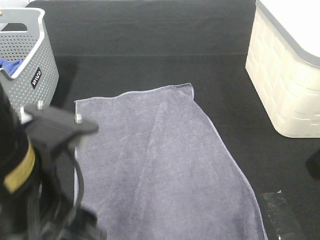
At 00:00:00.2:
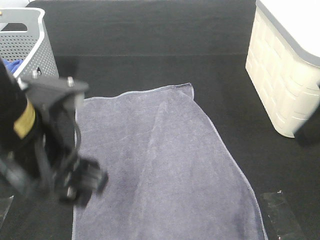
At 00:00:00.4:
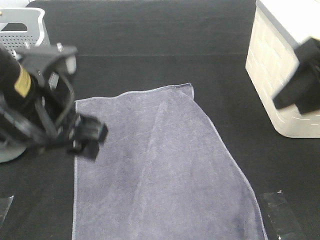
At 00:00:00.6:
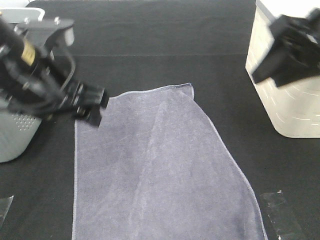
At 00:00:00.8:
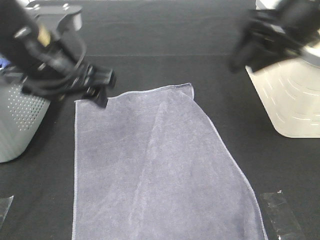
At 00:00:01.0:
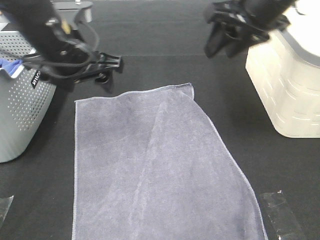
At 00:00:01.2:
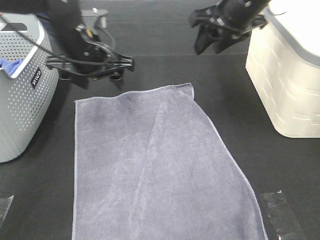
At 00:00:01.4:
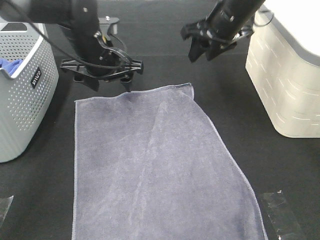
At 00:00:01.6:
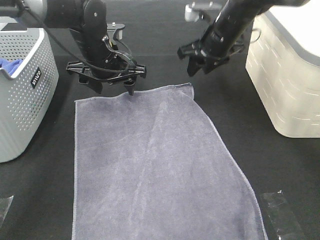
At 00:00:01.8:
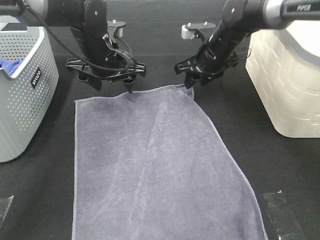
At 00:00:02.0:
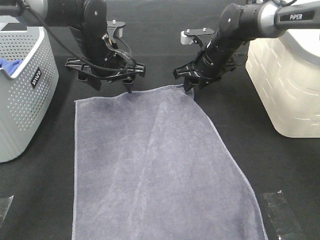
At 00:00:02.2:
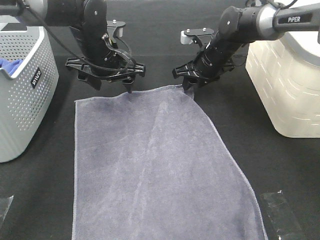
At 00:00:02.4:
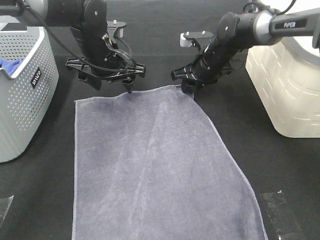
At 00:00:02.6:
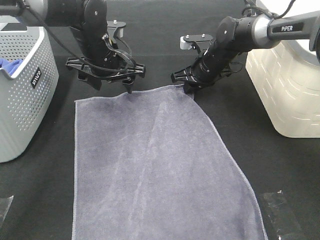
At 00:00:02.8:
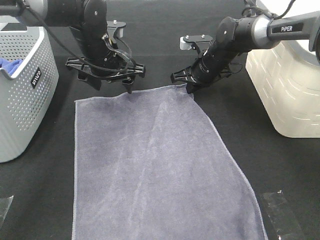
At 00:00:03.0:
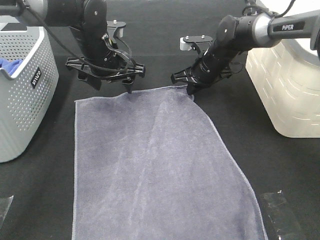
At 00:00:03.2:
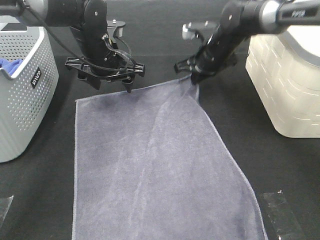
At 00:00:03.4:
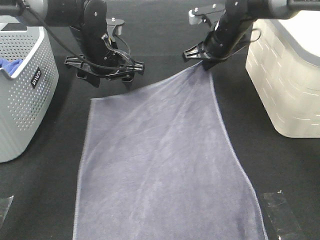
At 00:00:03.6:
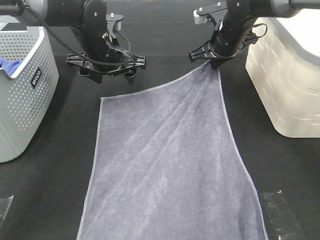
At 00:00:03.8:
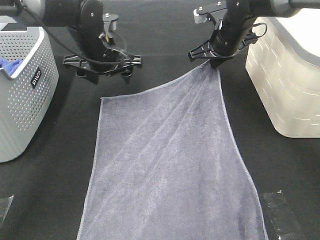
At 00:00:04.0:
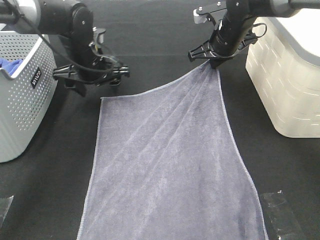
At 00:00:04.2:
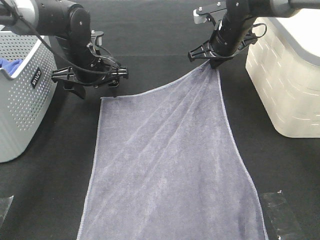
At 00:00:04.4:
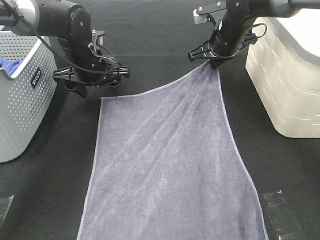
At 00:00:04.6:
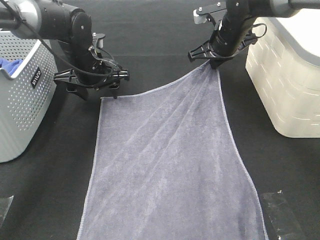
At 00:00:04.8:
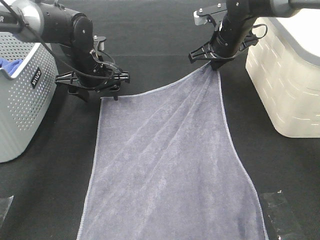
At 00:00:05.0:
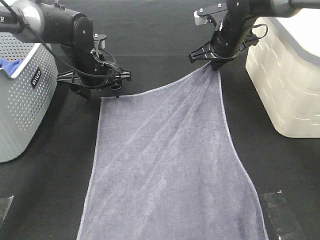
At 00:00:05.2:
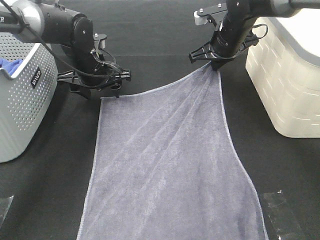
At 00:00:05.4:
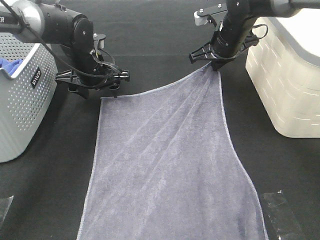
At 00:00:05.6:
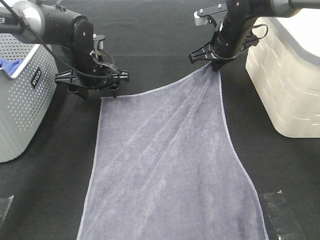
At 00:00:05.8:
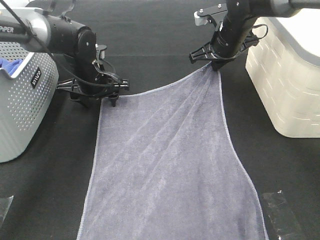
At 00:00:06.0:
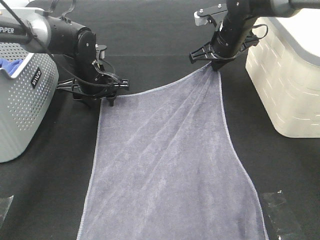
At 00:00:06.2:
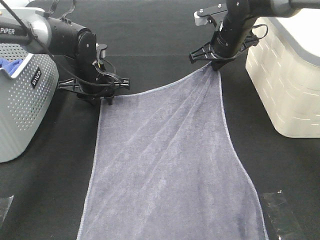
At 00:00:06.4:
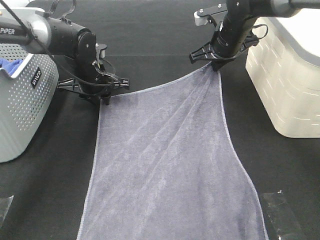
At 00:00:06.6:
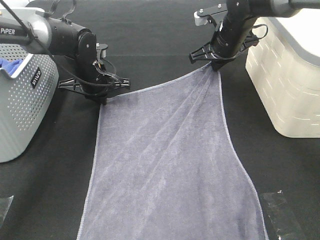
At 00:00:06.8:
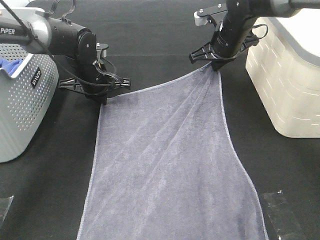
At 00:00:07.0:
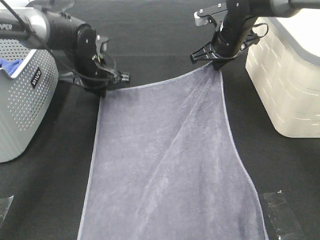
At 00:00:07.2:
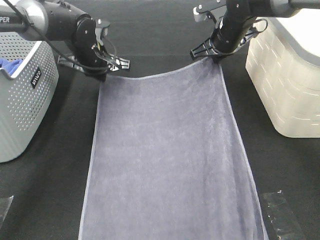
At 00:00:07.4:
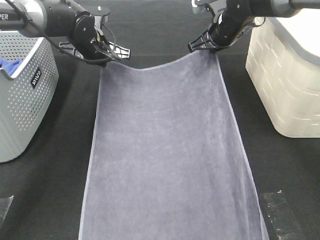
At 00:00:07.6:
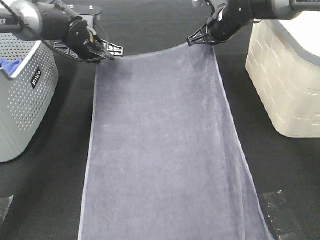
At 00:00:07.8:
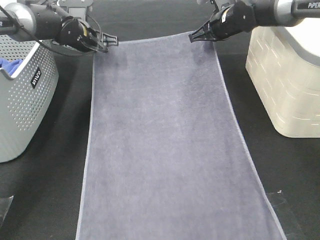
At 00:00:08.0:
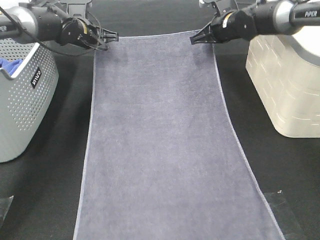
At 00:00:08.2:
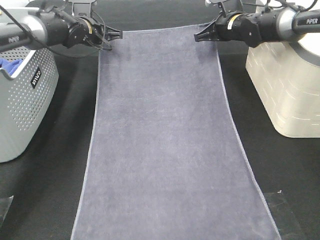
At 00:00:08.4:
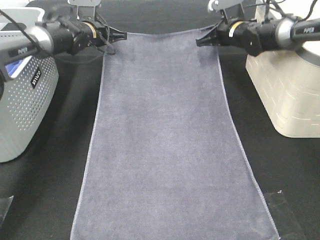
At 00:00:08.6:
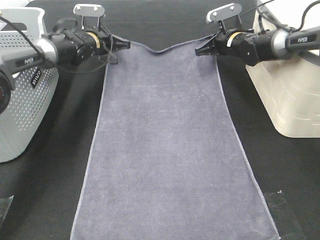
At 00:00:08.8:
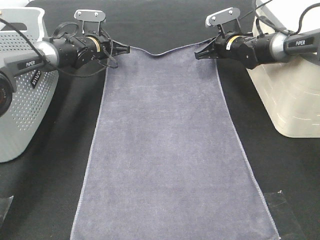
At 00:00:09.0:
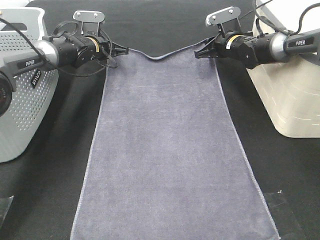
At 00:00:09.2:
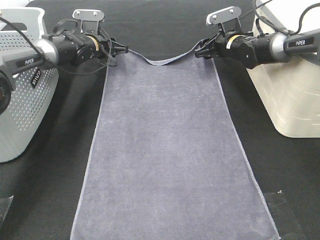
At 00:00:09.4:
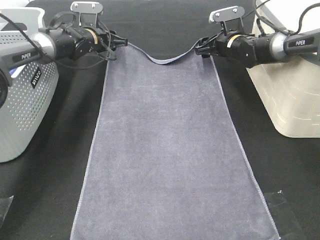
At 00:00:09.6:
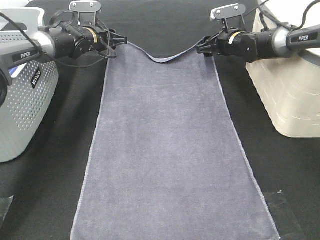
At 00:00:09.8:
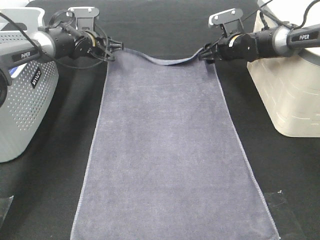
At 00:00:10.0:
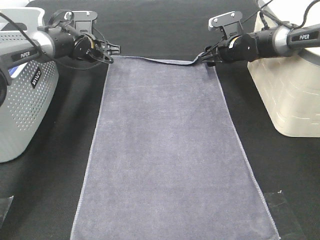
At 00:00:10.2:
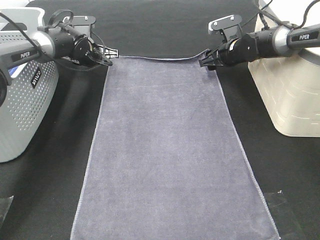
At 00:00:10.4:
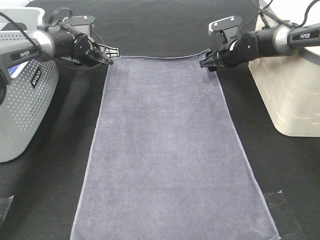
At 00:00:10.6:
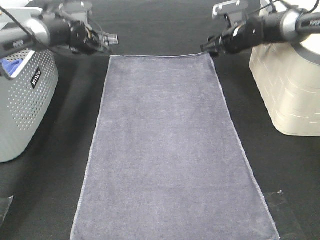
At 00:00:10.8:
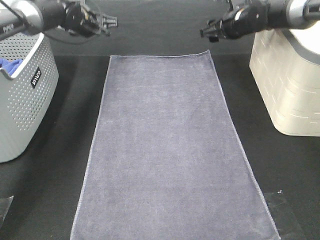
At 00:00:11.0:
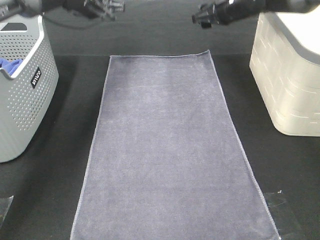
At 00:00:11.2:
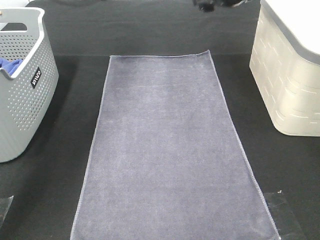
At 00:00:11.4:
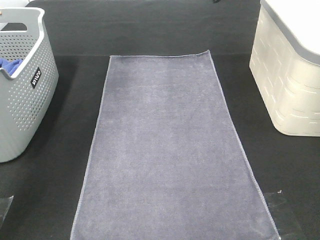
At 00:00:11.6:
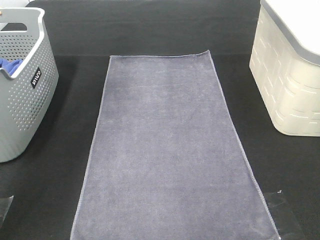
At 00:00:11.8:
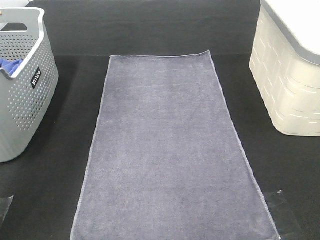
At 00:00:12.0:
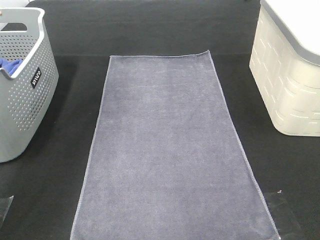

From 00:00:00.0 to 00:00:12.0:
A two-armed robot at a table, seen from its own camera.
Task of the whole recording: Remove the towel and place it.
Step, from 00:00:00.0 to 00:00:04.2: Left hand:adjust the gray towel.
Step, from 00:00:00.0 to 00:00:04.2: Right hand:adjust the gray towel.
From 00:00:00.0 to 00:00:01.6: The two grippers go about 30 cm forward.
From 00:00:01.6 to 00:00:03.0: The right gripper is displaced downward by roughly 5 cm, and closes.
From 00:00:03.0 to 00:00:04.4: The right gripper moves upward, roughly 5 cm. The left gripper shifts by some 5 cm.
From 00:00:04.4 to 00:00:06.0: There are only small adjustments of the grippers.
From 00:00:06.0 to 00:00:07.6: The left gripper heads forward, covering about 5 cm, and closes up.
From 00:00:07.6 to 00:00:09.0: The right gripper shifts approximately 10 cm downward, and opens up. The left gripper heads forward and downward, covering roughly 10 cm.
From 00:00:09.0 to 00:00:10.4: The right gripper opens up.
From 00:00:10.4 to 00:00:12.0: Both grippers move upward and backward, roughly 35 cm.

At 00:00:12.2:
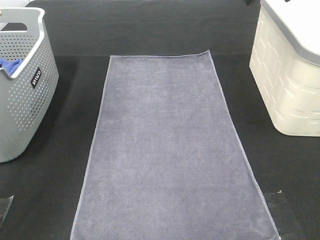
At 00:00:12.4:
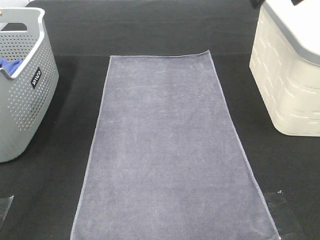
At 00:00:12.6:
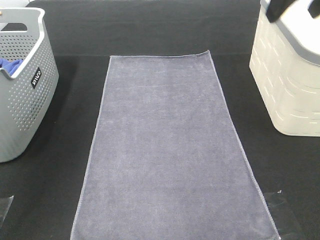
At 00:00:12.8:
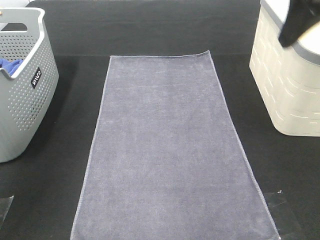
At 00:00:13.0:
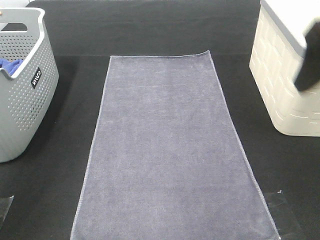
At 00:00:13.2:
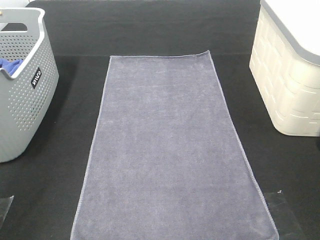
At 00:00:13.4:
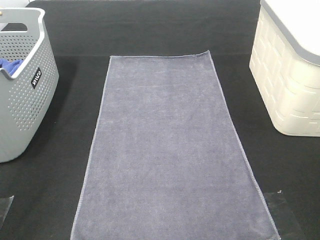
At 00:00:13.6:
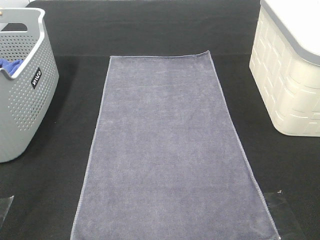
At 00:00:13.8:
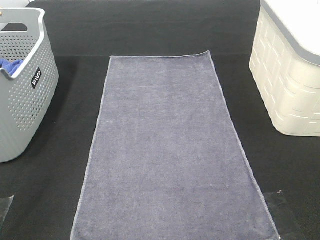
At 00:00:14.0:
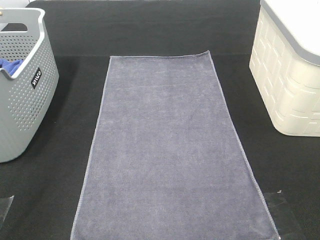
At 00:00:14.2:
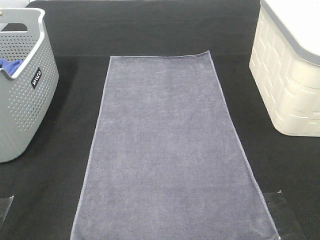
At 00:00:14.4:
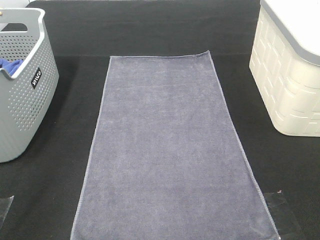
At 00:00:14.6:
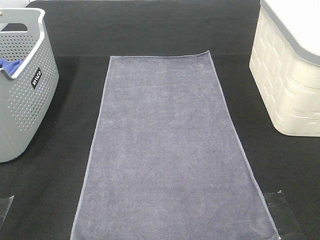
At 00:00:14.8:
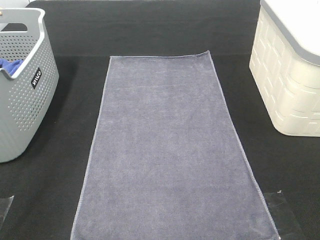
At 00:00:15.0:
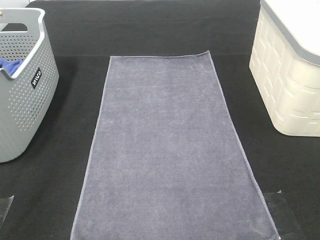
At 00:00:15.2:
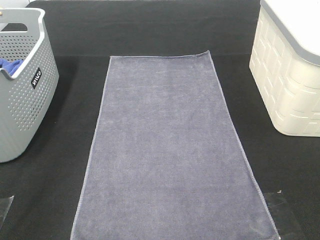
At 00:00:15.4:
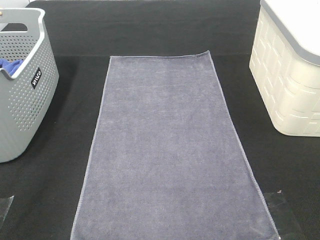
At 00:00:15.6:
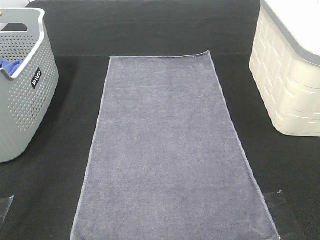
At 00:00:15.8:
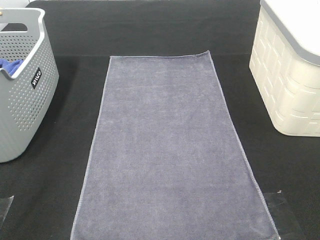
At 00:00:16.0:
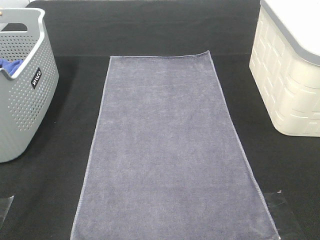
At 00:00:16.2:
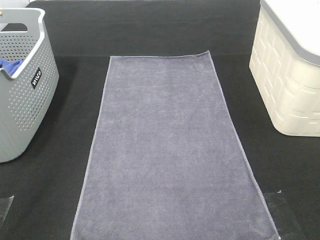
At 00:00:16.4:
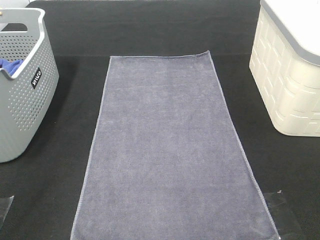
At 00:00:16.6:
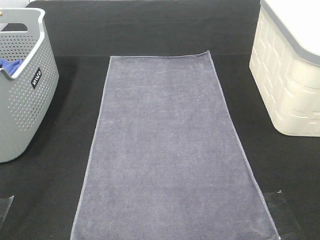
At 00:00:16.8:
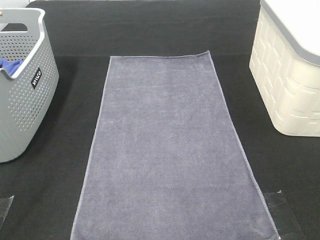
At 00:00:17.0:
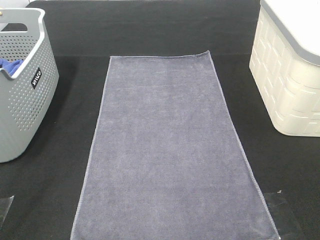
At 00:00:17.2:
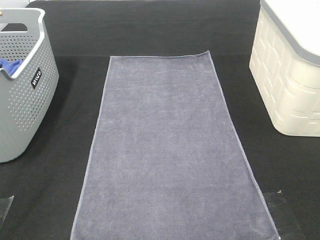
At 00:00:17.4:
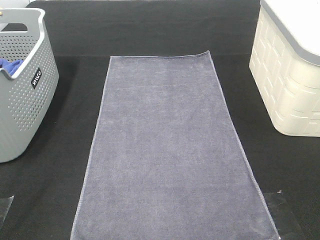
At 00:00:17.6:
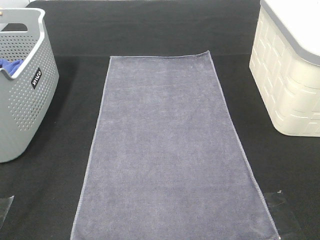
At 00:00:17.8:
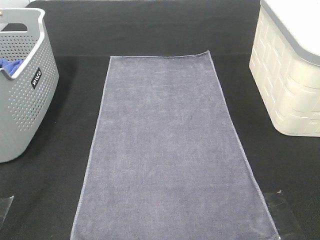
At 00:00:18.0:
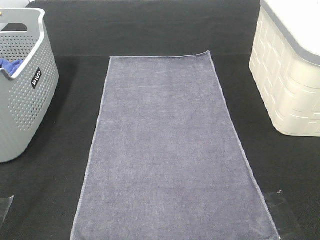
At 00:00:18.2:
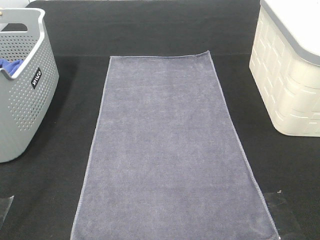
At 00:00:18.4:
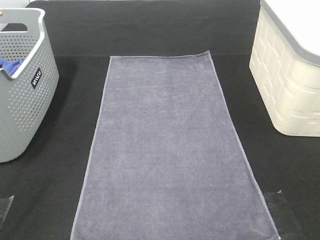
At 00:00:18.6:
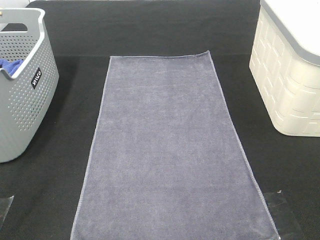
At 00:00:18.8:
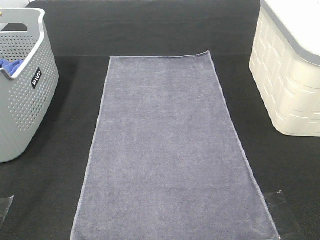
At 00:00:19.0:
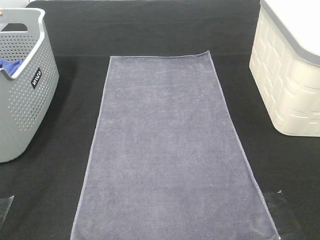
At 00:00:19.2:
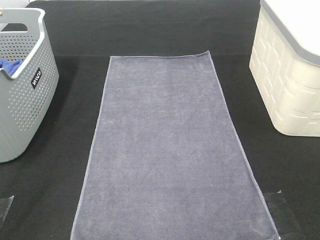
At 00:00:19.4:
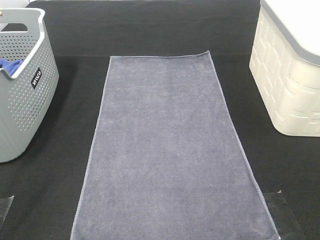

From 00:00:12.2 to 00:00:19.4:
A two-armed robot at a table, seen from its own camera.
Task of the whole recording: Remove the towel and place it.
From 00:00:12.2 to 00:00:13.6: The grippers both shift backward and downward by some 30 cm.
From 00:00:18.0 to 00:00:19.4: Neither gripper changes place.
